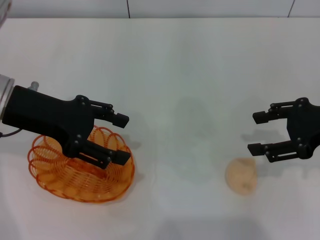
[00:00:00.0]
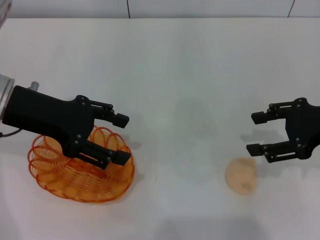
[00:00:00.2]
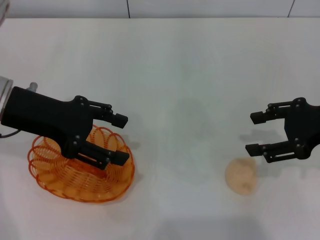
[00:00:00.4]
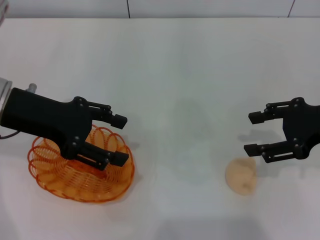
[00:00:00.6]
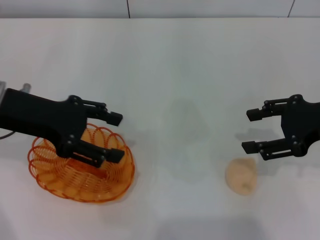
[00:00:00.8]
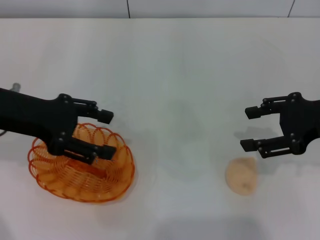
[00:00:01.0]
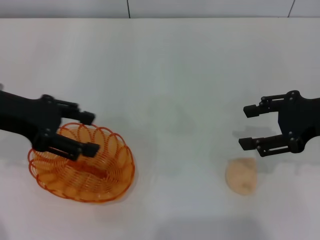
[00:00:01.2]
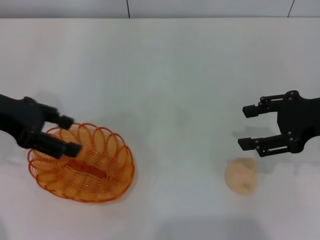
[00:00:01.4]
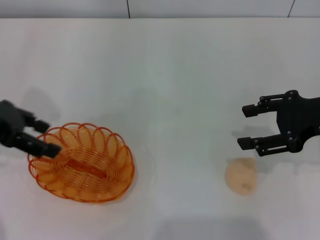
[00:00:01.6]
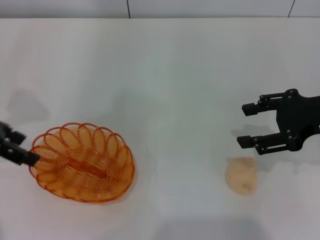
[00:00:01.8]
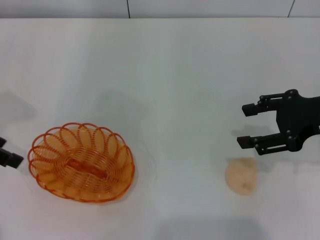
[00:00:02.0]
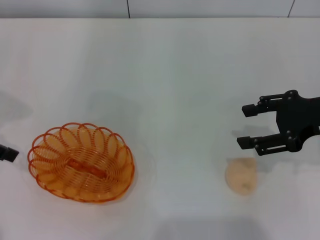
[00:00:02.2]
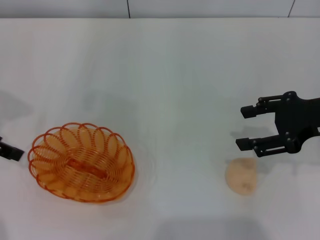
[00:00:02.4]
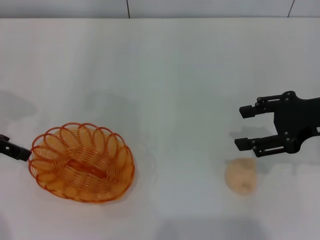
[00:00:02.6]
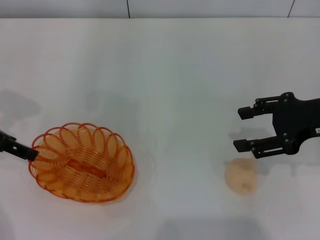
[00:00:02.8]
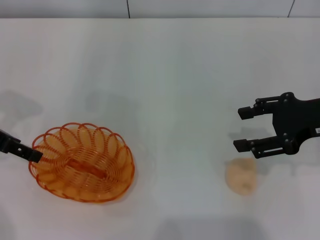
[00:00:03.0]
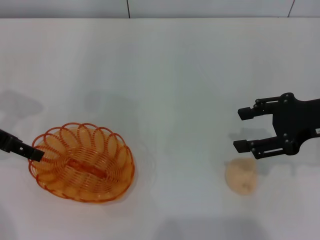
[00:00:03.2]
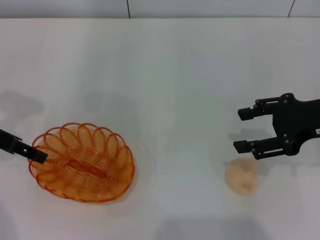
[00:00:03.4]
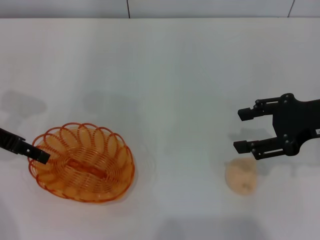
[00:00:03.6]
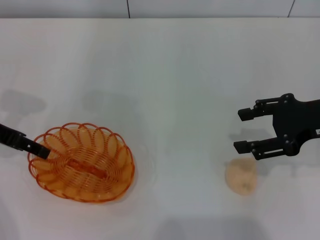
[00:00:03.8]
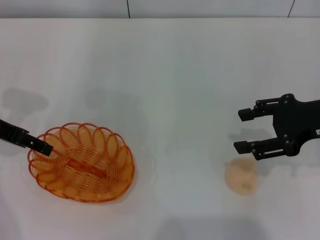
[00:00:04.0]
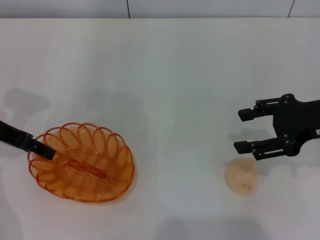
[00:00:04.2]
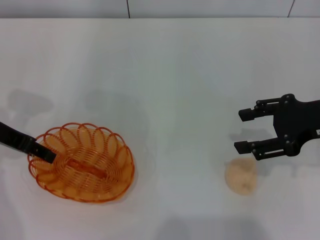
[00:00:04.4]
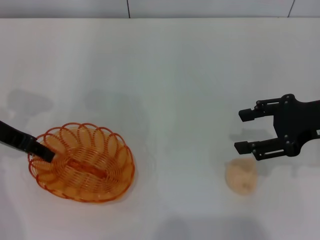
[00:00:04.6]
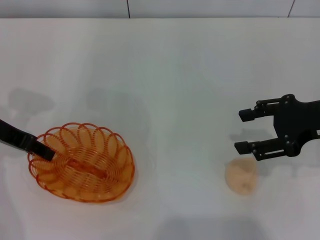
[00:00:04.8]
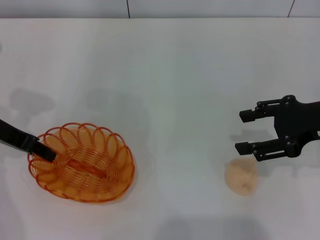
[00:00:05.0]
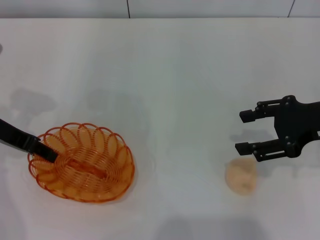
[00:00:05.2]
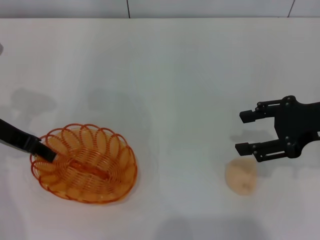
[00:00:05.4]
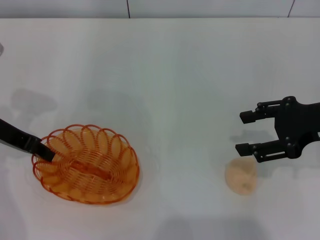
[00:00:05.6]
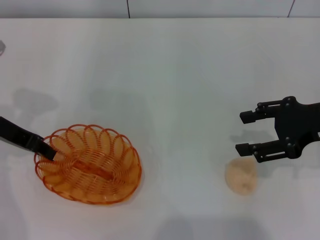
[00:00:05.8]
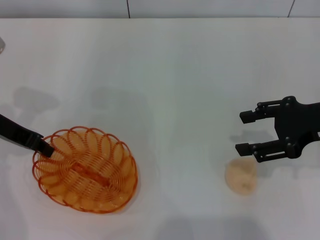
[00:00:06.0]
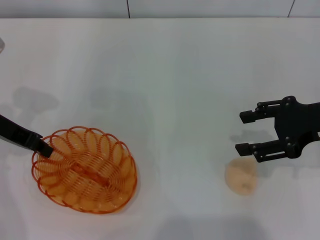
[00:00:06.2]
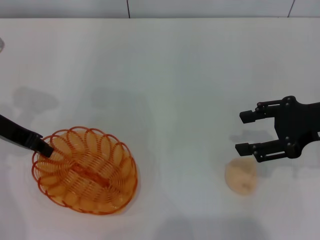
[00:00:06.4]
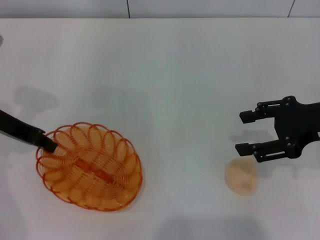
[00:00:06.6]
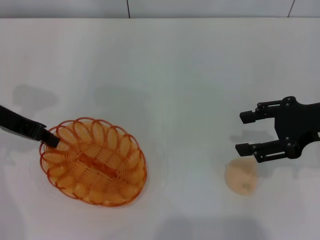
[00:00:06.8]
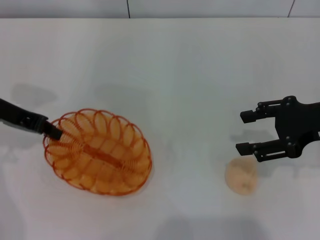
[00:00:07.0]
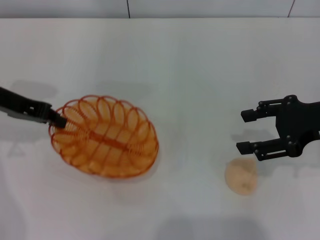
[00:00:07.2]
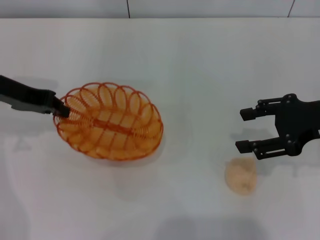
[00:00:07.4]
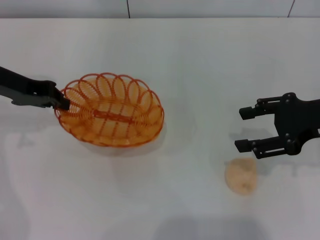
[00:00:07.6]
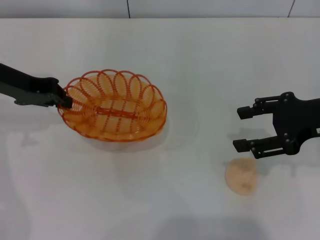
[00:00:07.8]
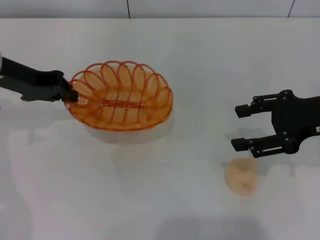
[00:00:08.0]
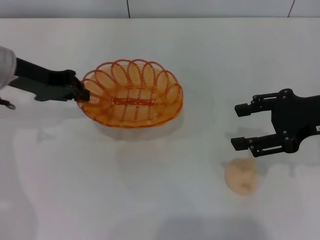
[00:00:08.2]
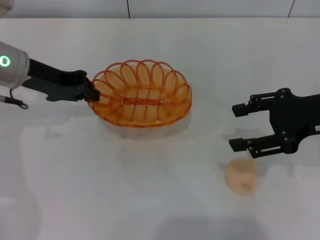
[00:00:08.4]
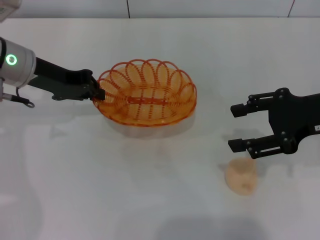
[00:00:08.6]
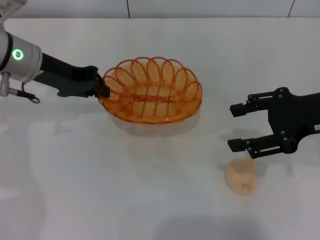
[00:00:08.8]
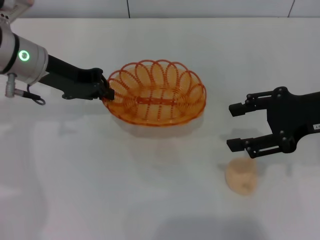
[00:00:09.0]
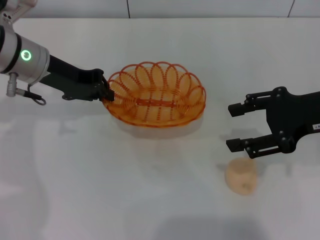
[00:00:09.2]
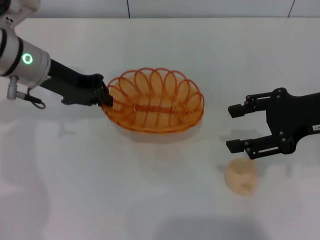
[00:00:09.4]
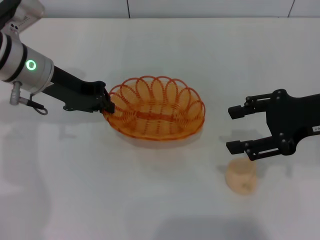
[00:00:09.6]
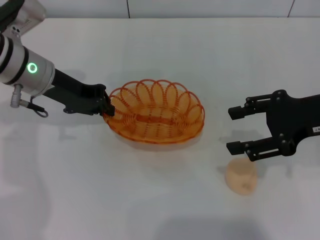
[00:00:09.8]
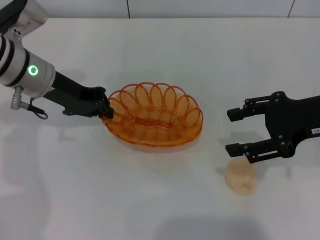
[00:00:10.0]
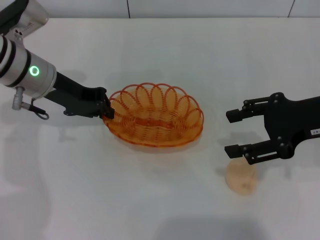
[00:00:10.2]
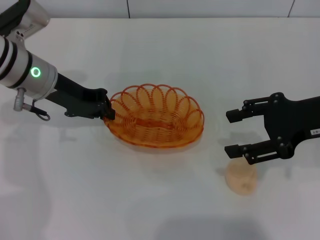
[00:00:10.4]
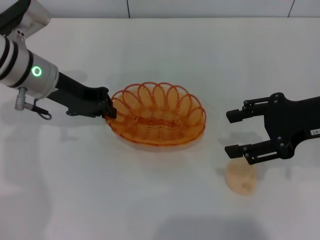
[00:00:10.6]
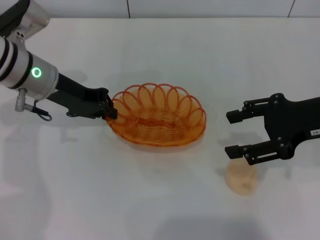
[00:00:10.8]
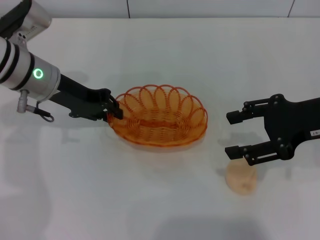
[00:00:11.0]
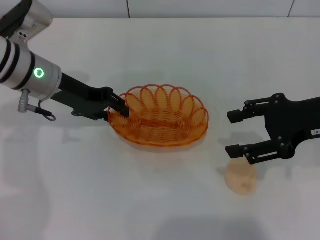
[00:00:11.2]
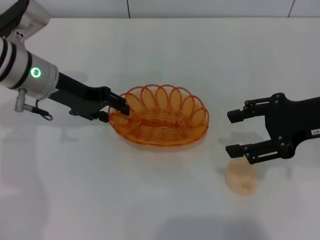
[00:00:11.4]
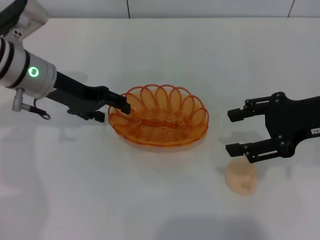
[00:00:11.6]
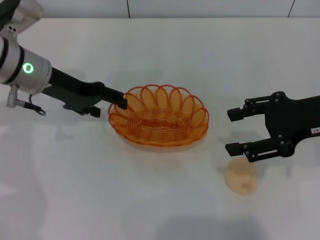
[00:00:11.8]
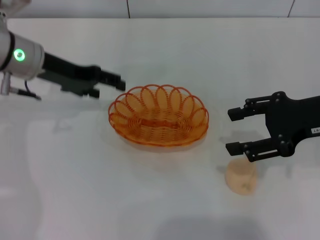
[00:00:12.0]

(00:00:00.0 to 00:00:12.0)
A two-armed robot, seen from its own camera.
Step, 00:00:00.0 - 00:00:06.8: Pick up the basket with the left gripper.
Step, 00:00:07.0 - 00:00:12.0: Place the basket in the center of view with the left gripper.
00:00:00.0 - 00:00:01.6: The left gripper heads to the left, covering about 5 cm.
00:00:03.0 - 00:00:04.4: There are only small adjustments of the grippers.
00:00:04.4 - 00:00:06.0: The left gripper closes.
00:00:07.6 - 00:00:09.0: The left gripper is displaced to the right by some 5 cm.
00:00:09.0 - 00:00:10.4: There are only small adjustments of the grippers.
00:00:10.4 - 00:00:12.0: The left gripper opens.

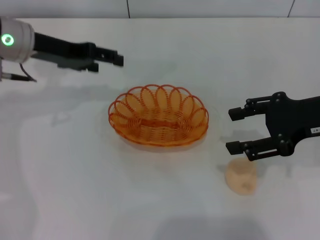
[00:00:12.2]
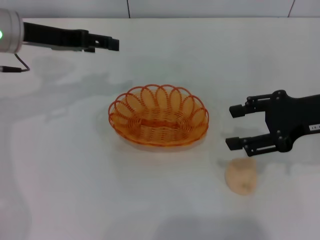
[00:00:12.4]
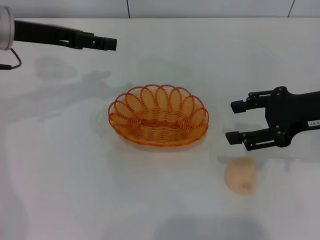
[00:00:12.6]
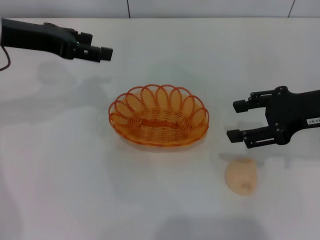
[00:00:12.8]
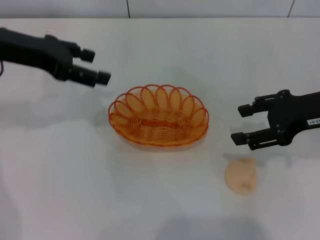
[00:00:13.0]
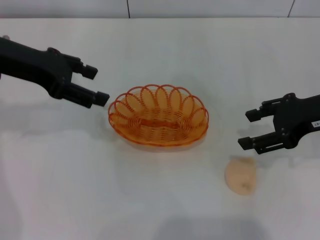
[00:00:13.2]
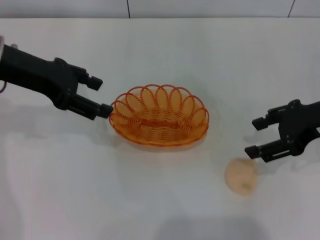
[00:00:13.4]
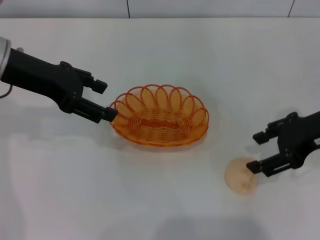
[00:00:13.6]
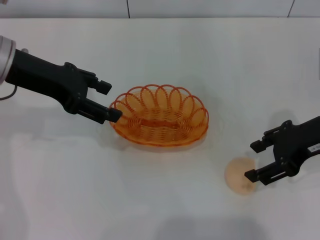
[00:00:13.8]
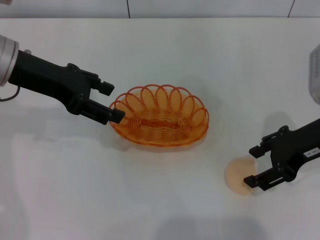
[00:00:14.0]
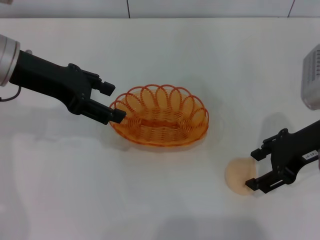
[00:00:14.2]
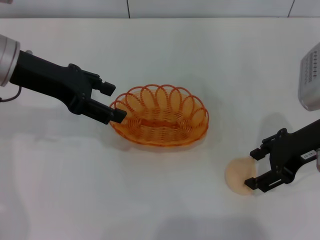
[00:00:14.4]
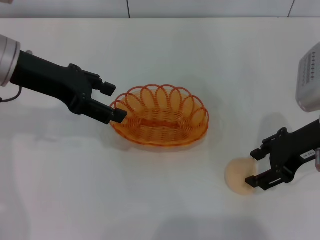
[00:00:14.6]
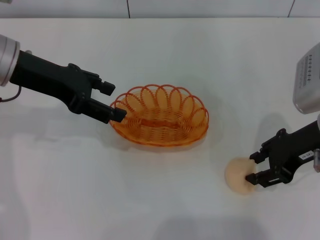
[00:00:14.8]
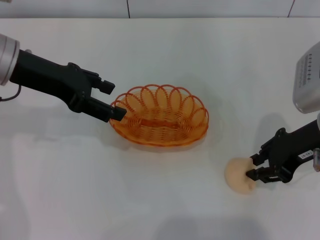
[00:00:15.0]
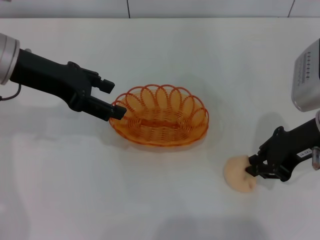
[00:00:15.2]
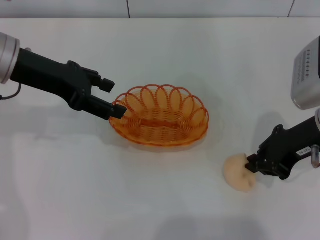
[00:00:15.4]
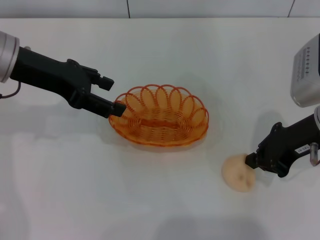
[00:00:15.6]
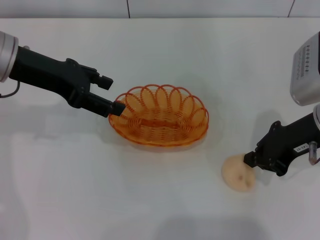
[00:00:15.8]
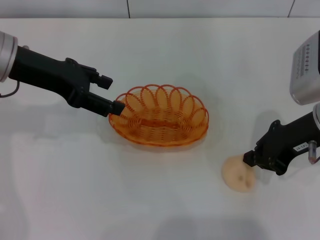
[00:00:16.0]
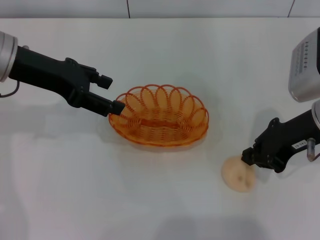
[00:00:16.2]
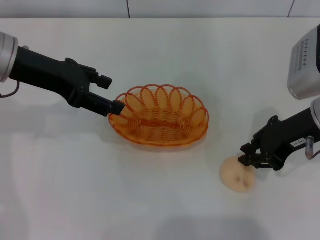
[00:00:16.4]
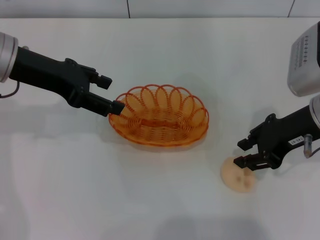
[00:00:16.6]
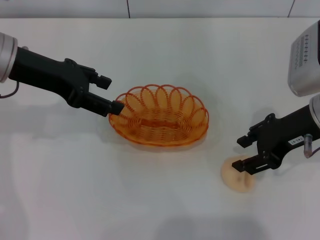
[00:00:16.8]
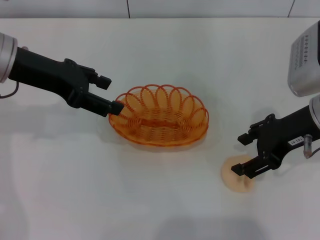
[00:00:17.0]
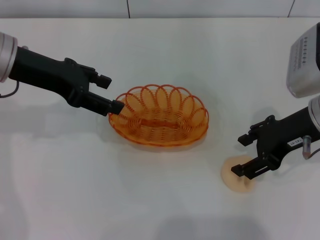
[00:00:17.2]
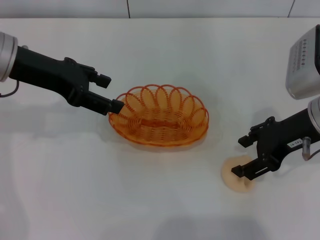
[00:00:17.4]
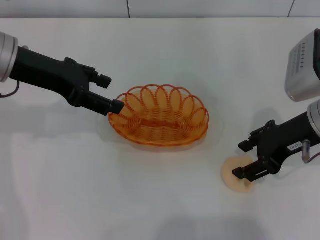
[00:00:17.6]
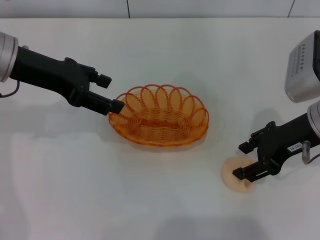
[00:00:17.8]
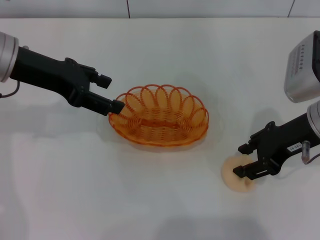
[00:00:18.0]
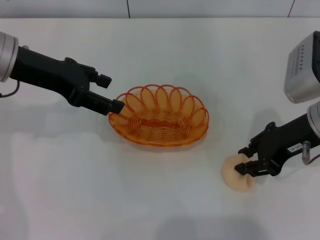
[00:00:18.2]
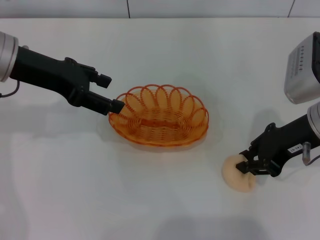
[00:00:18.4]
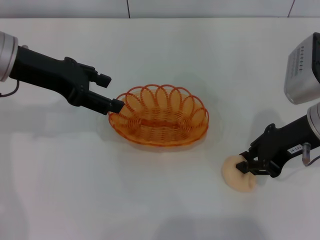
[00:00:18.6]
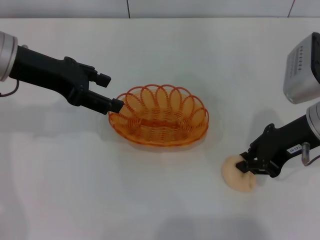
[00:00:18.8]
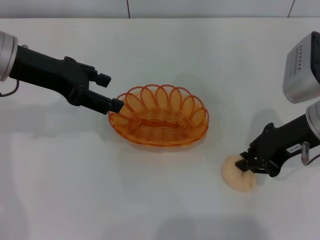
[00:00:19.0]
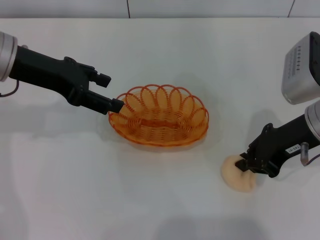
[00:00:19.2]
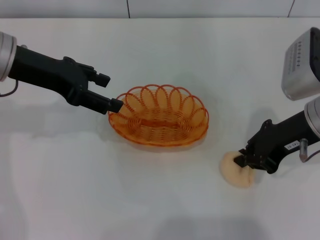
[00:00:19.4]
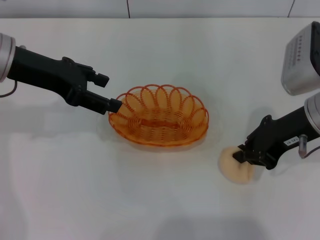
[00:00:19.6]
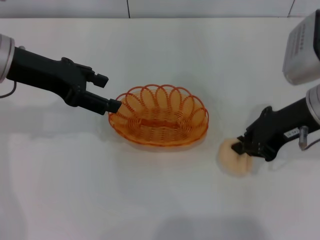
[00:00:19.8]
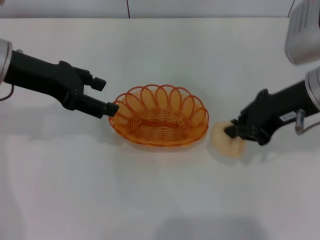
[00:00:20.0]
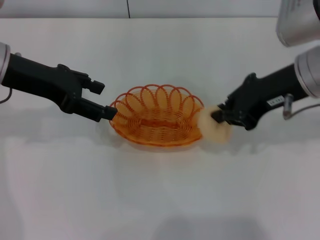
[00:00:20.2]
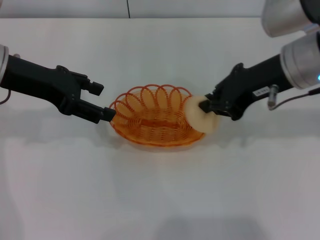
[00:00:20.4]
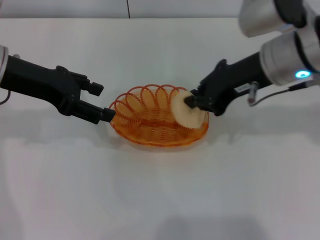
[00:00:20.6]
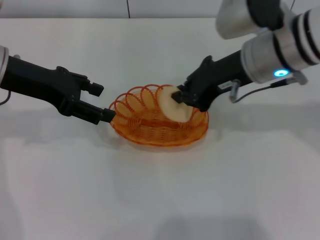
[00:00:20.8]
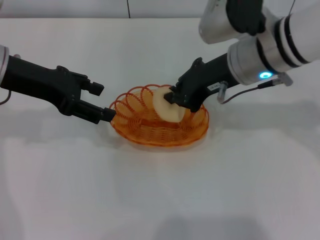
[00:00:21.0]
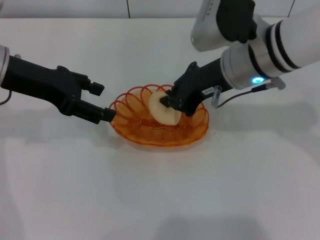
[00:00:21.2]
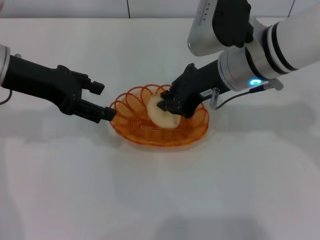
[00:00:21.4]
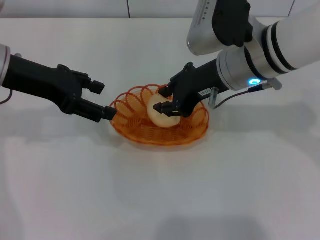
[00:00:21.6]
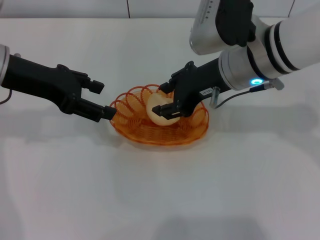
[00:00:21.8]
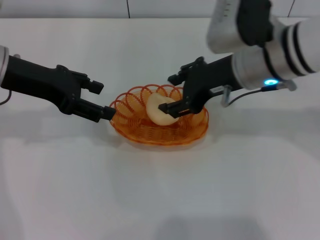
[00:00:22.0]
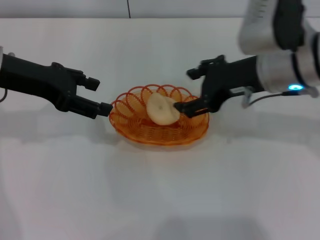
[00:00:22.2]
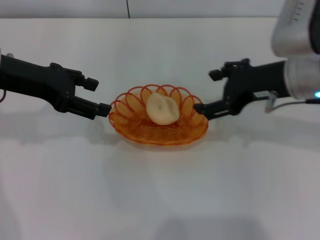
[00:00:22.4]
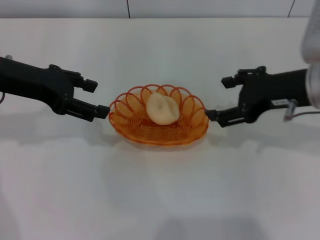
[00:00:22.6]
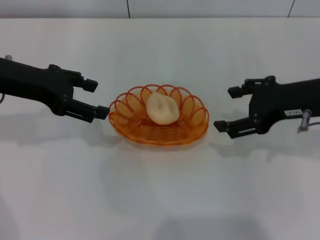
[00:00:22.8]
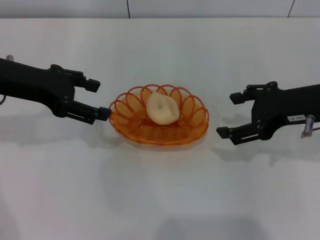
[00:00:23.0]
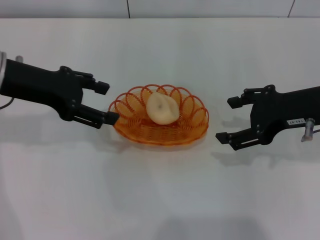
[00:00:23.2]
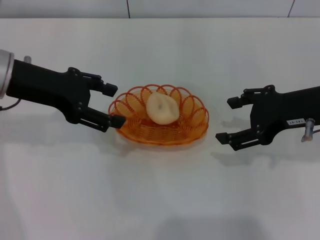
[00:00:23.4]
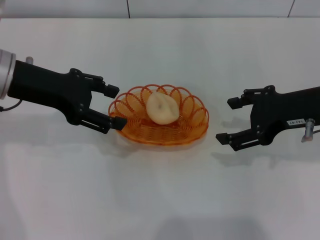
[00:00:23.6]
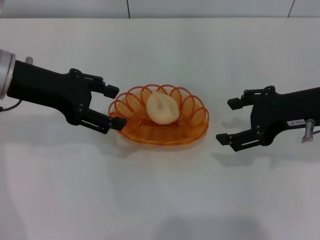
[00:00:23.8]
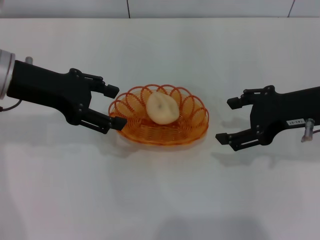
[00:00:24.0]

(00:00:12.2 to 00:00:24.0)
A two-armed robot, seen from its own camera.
Step, 00:00:12.2 - 00:00:20.0: Pick up the egg yolk pastry with the right gripper.
Step, 00:00:20.2 - 00:00:22.2: Place the egg yolk pastry into the basket with the right gripper.
00:00:12.2 - 00:00:13.6: The left gripper shifts by roughly 5 cm.
00:00:13.6 - 00:00:15.2: The right gripper closes.
00:00:15.2 - 00:00:16.6: The grippers move only a little.
00:00:16.6 - 00:00:18.2: The right gripper opens up.
00:00:18.2 - 00:00:19.6: The right gripper closes its fingers.
00:00:19.6 - 00:00:21.0: The right gripper shifts roughly 10 cm to the left.
00:00:21.0 - 00:00:22.6: The right gripper heads to the right, covering about 10 cm, and opens its fingers.
00:00:22.6 - 00:00:24.0: The grippers stay close to where they were, moving slightly.
